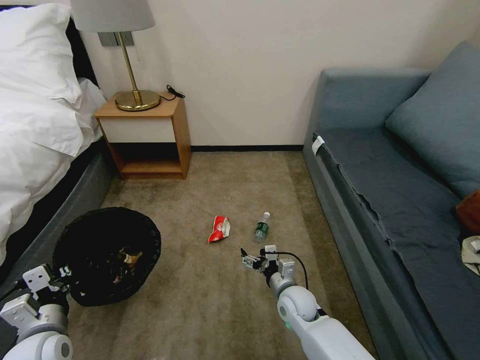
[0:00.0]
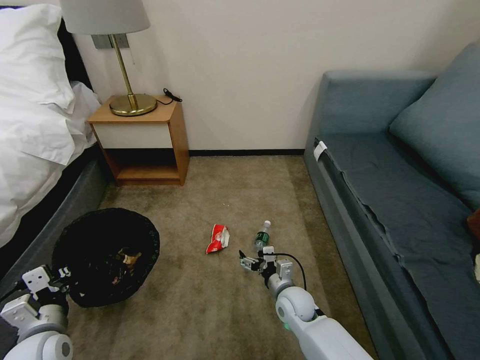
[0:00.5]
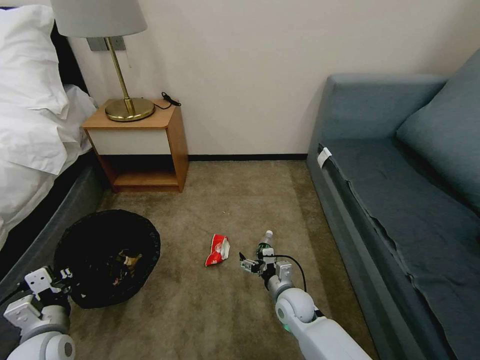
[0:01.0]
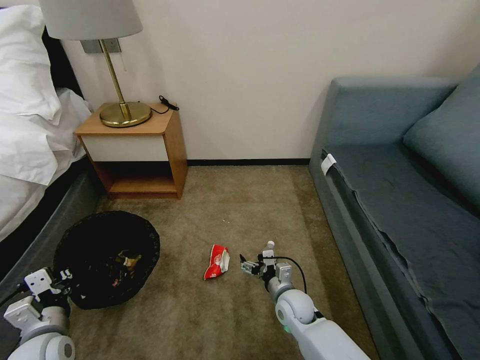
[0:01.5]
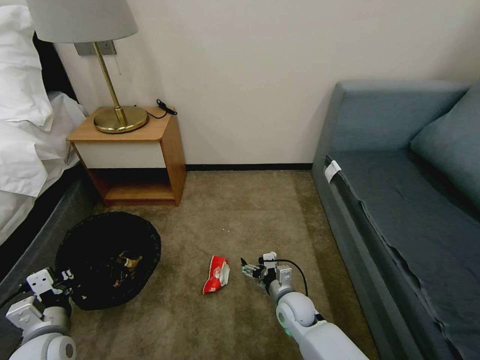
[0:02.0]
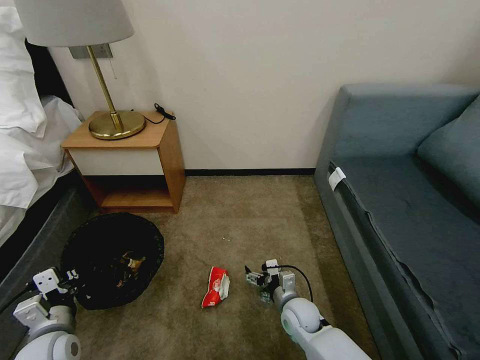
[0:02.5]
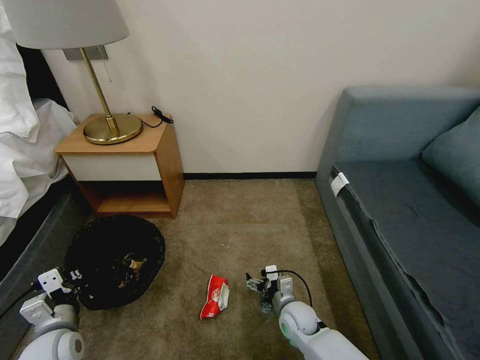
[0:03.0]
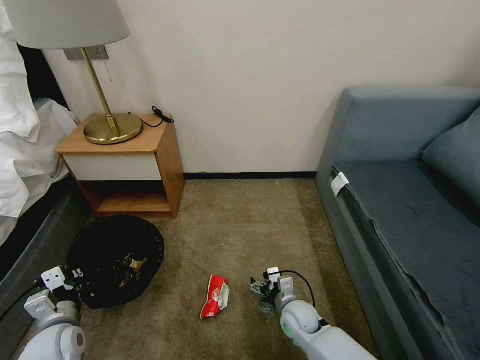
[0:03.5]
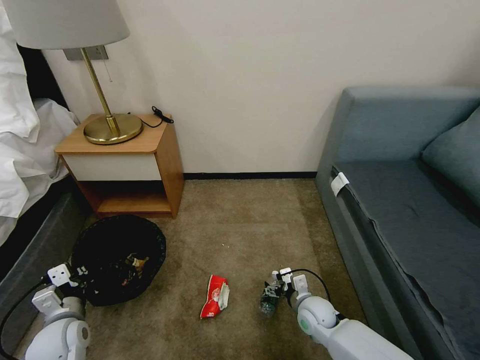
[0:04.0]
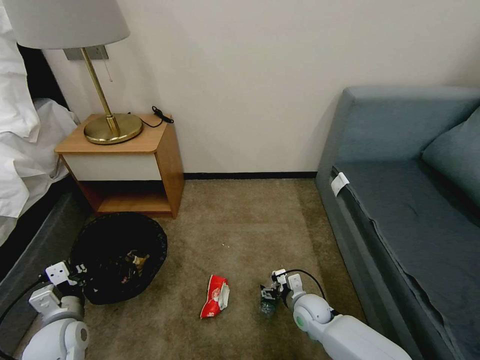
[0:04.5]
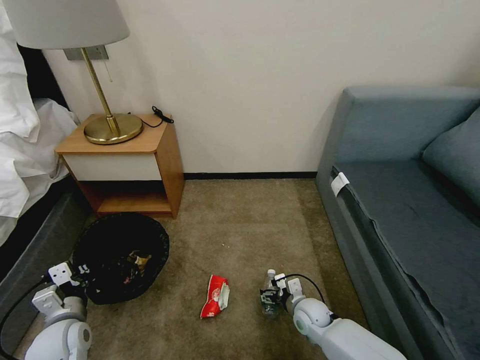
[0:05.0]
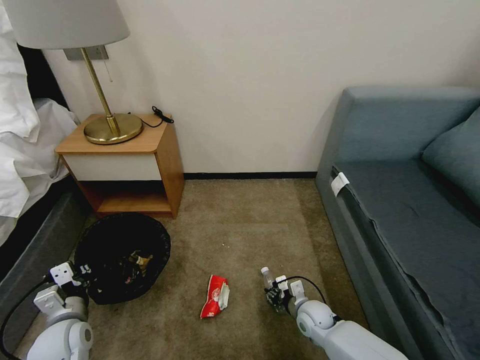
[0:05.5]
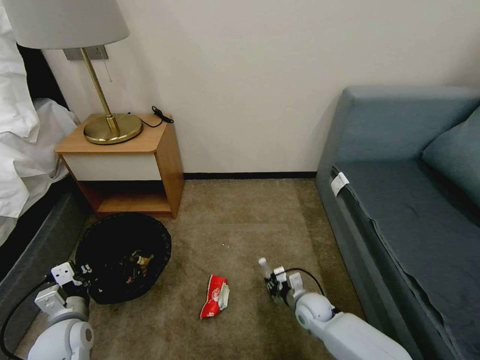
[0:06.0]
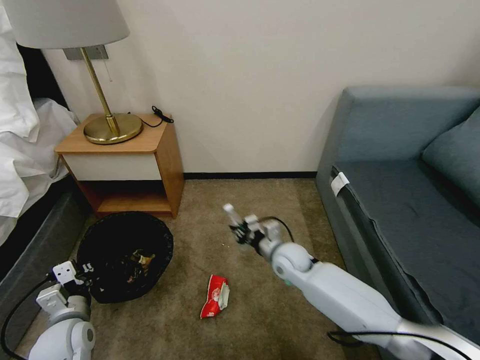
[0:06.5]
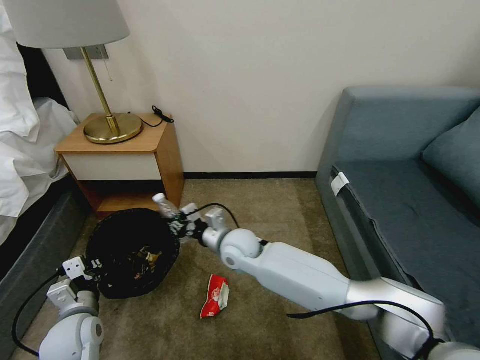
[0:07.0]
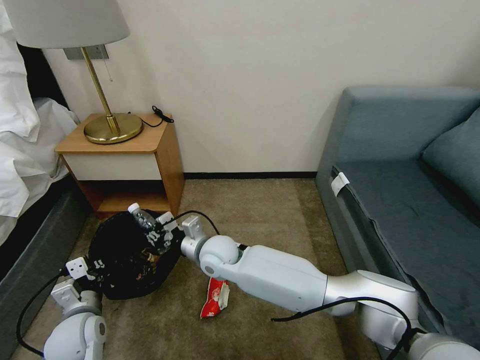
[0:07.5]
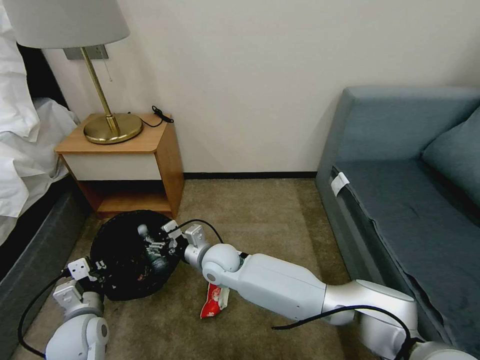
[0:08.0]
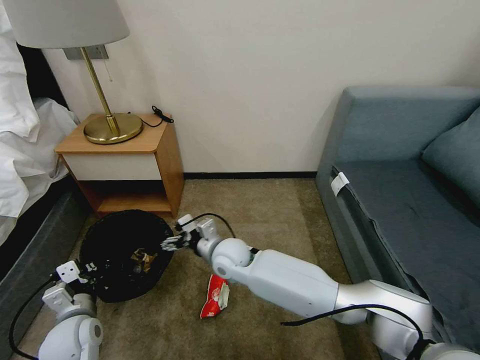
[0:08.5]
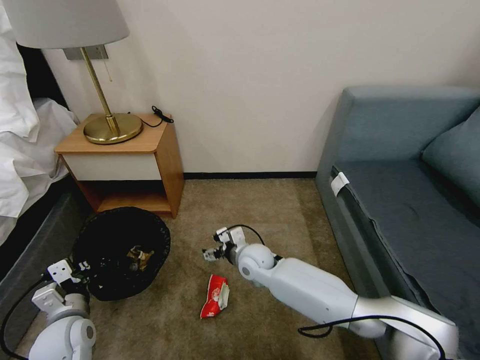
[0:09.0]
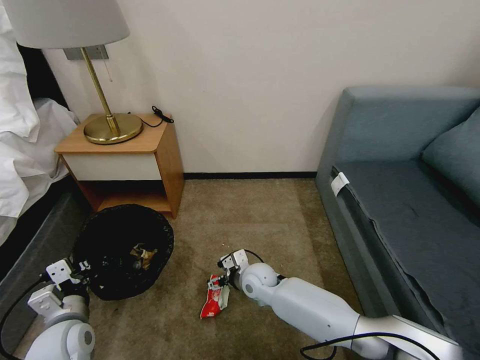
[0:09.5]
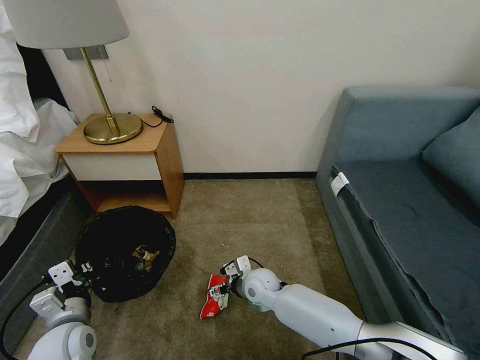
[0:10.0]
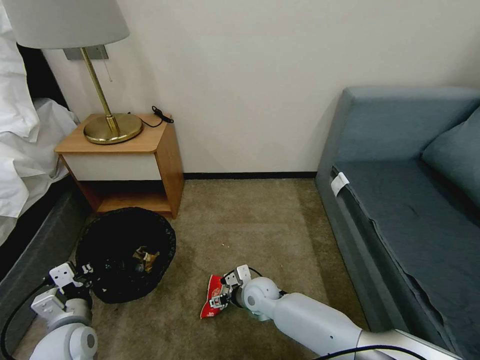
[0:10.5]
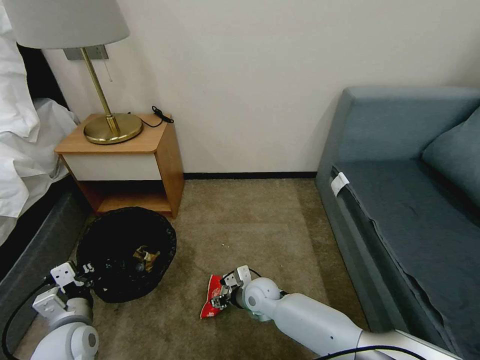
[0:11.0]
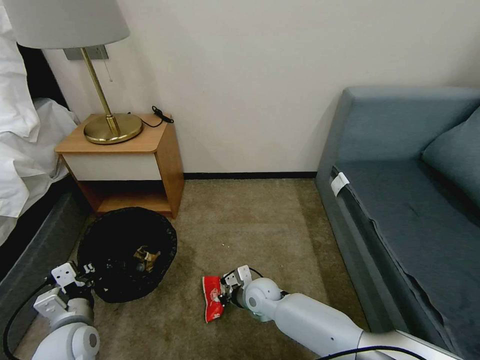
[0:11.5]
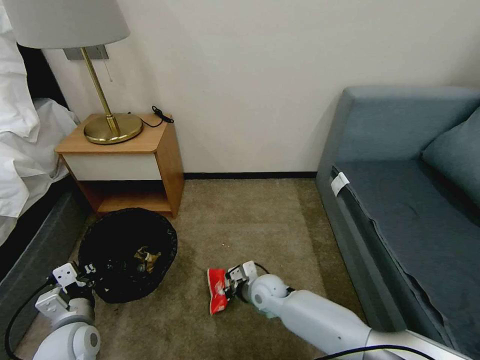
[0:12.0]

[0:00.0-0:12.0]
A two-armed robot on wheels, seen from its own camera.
Task of the whole recording: Pick up the trash bin, then pick up the garbage on the floor and place it into the trash bin.
0:02.0 to 0:04.0: The right gripper heads to the right, covering approximately 5 cm, while the left gripper ends up approximately 5 cm from where it was.
0:04.0 to 0:06.0: The right gripper closes its fingers.
0:06.0 to 0:08.0: The right gripper moves to the left and upward, approximately 30 cm, and opens.
0:08.0 to 0:10.0: The right gripper goes approximately 15 cm to the right and downward.
0:10.0 to 0:12.0: The right gripper closes up.

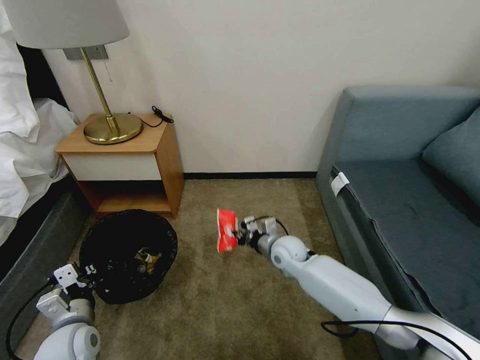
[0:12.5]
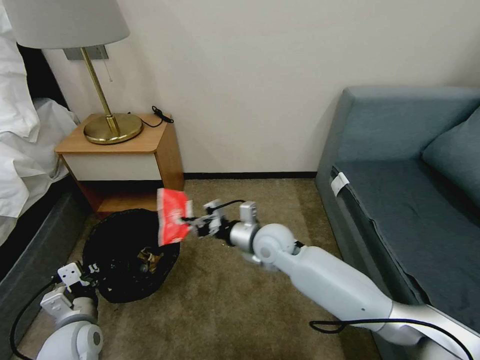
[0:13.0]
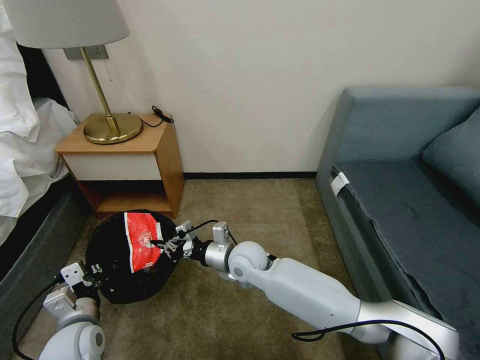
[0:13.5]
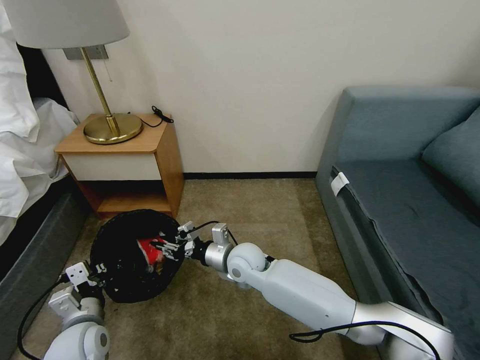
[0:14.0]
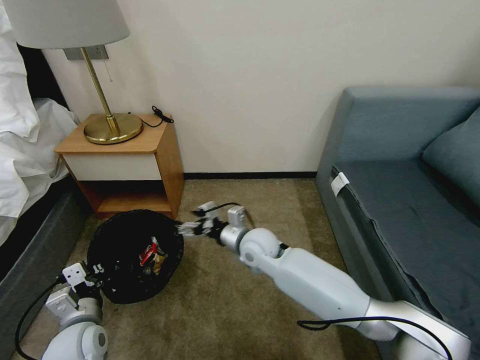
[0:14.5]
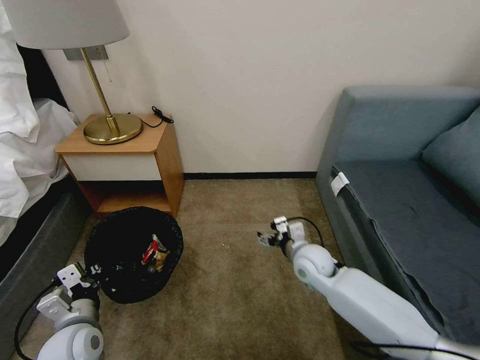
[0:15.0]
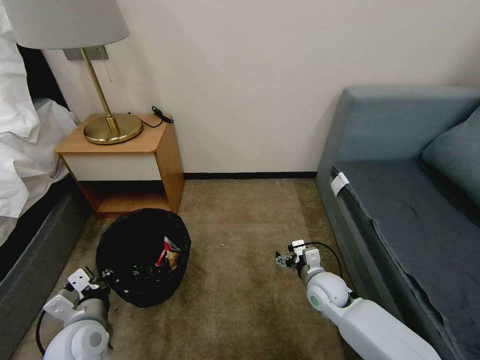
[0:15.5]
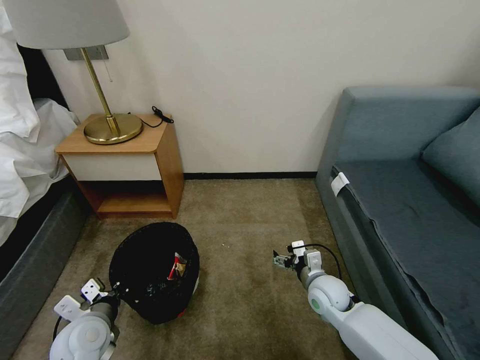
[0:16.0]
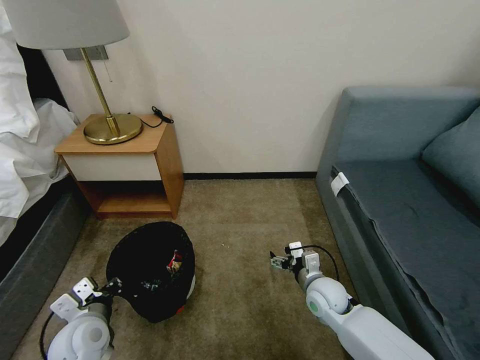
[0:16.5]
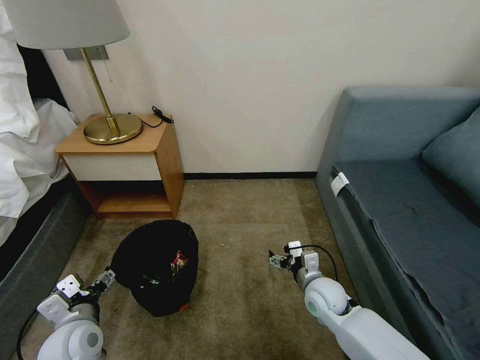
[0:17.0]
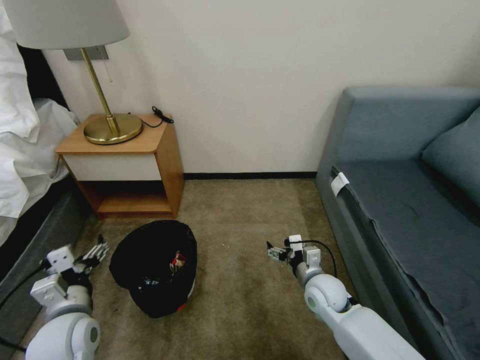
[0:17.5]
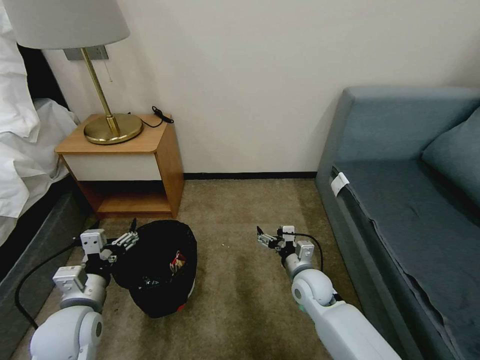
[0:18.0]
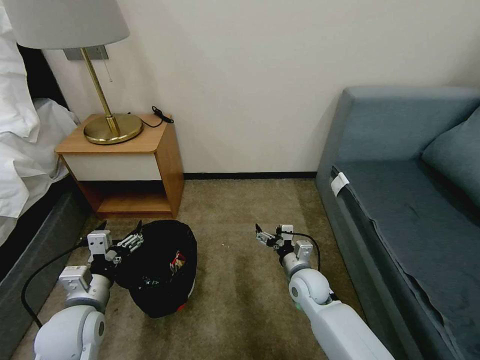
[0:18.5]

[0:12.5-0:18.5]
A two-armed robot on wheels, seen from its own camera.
Task of the whole recording: Pick up the trash bin, then pick up the garbage on the floor and place it into the trash bin.
0:12.5 to 0:14.5: The right gripper heads to the left and upward, covering about 10 cm, and opens its fingers.
0:14.5 to 0:16.5: The left gripper opens its fingers. The right gripper moves to the right, downward and backward, approximately 20 cm.
0:16.5 to 0:18.5: The left gripper opens its fingers.
